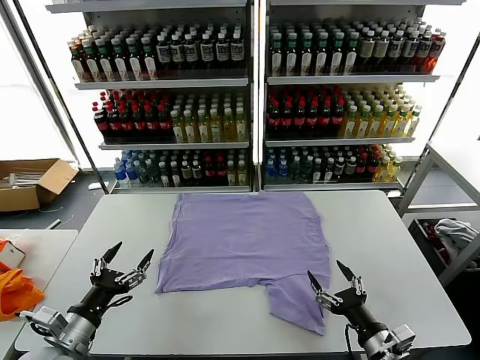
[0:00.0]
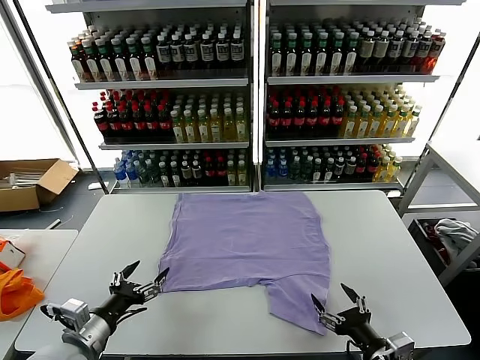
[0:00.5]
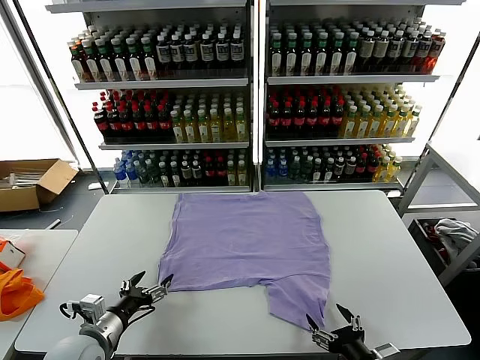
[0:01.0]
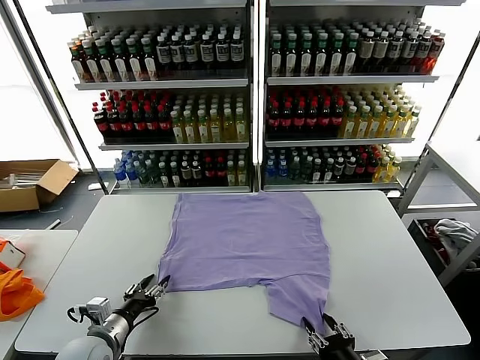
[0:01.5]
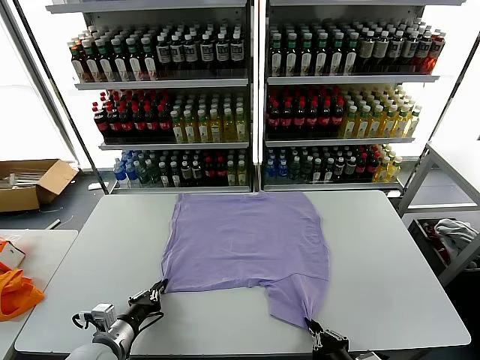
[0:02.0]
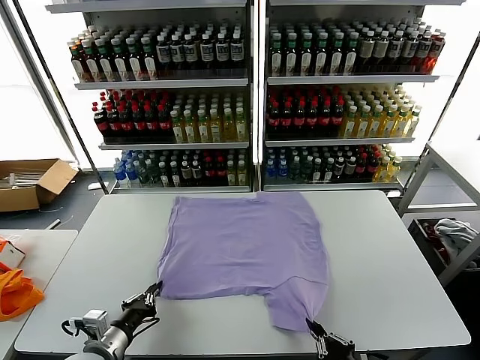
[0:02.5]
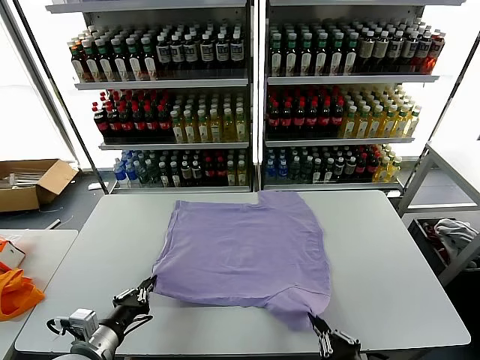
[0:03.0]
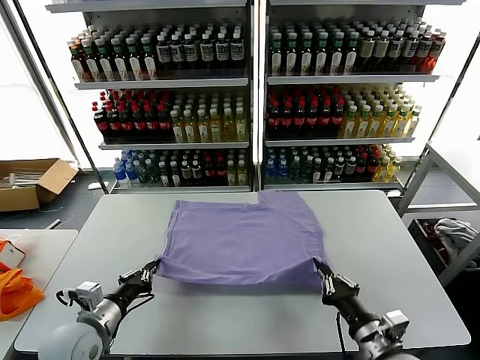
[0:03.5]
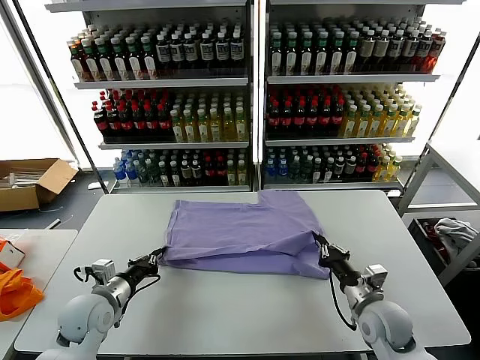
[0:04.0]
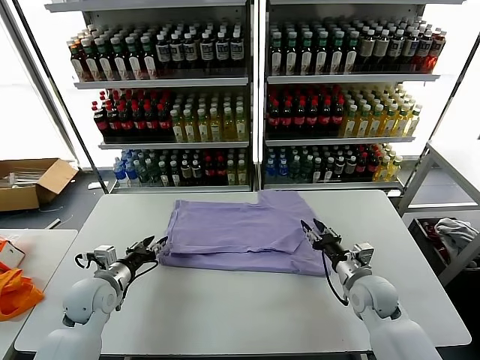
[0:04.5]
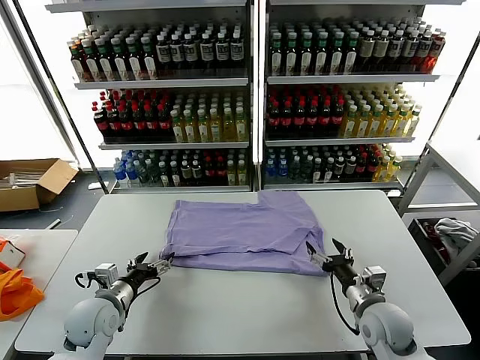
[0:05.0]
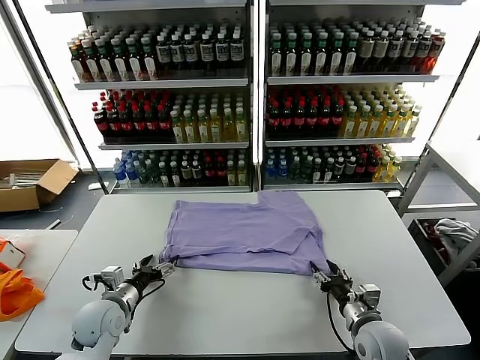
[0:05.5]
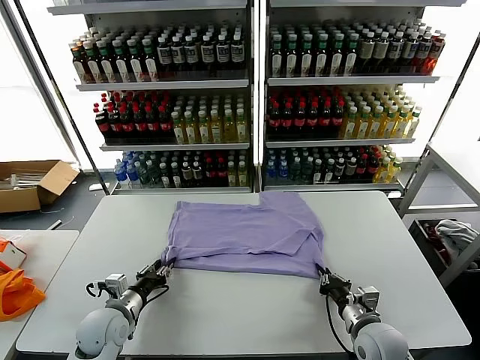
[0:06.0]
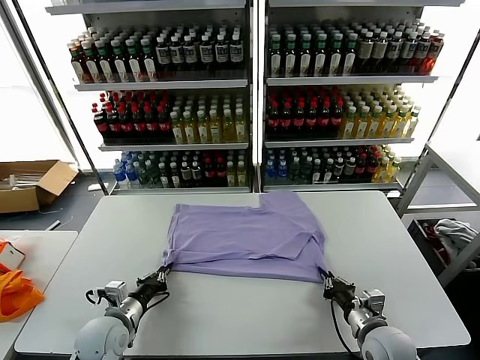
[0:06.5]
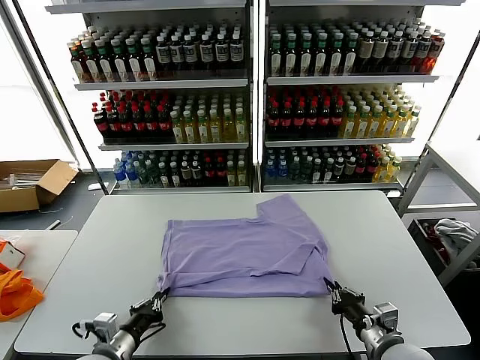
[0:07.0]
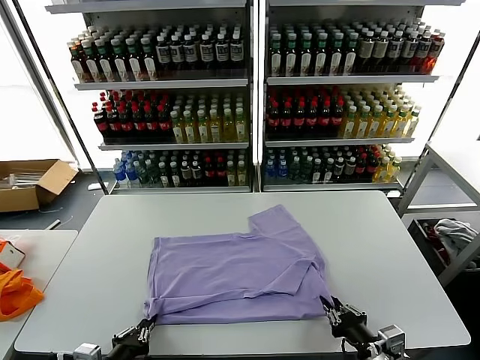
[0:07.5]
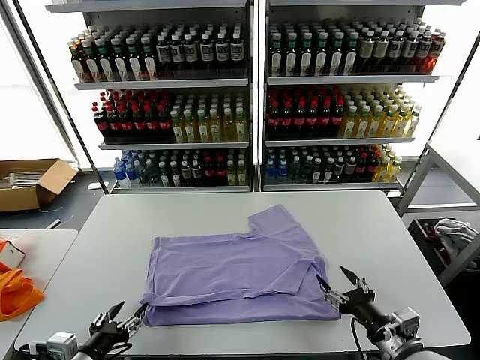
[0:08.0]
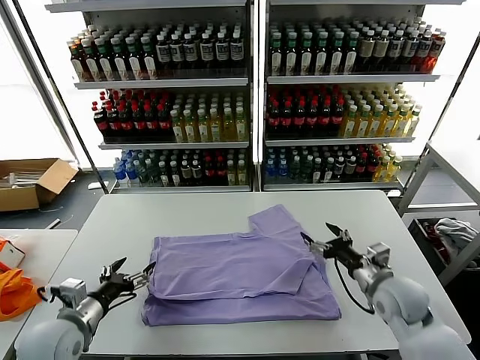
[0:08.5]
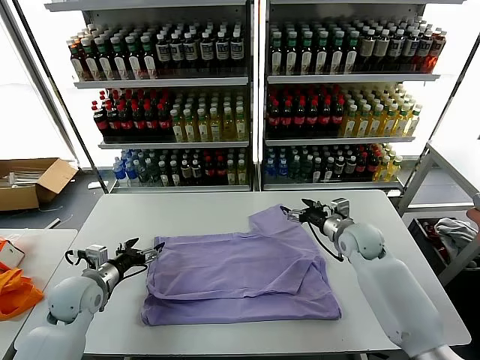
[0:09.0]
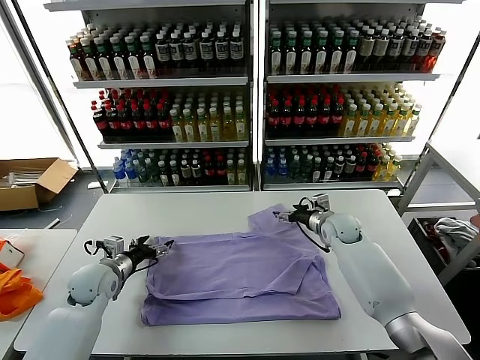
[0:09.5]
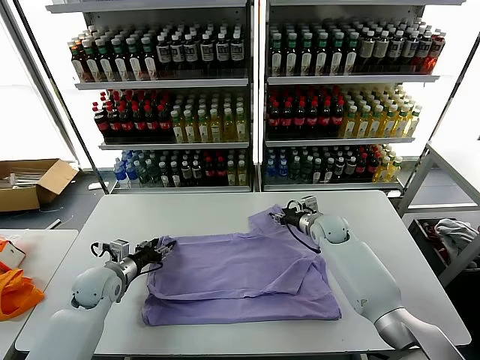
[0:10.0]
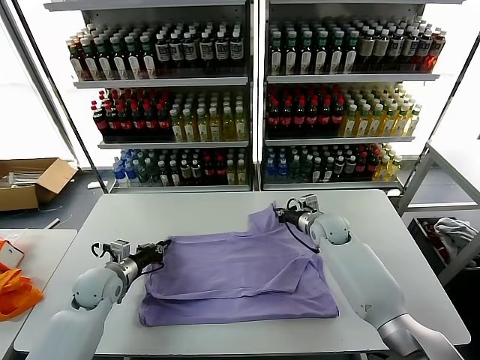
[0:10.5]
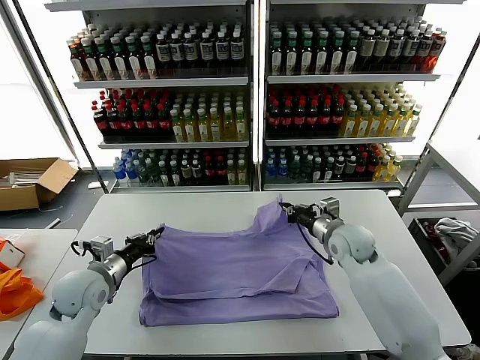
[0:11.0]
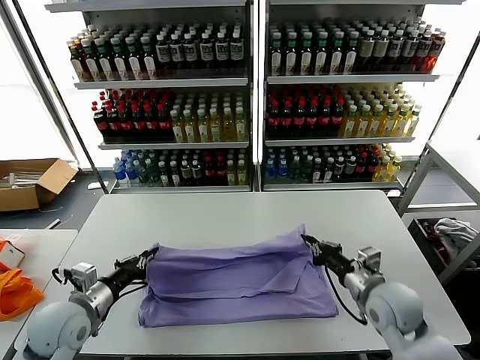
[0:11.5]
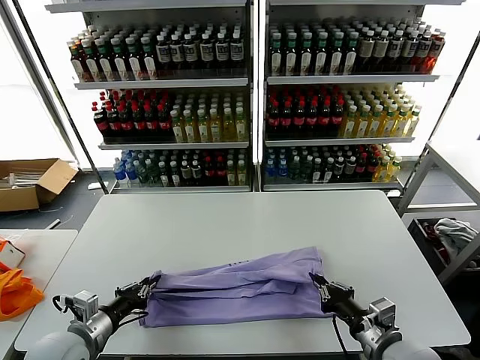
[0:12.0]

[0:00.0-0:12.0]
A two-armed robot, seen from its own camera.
Task of the whole recording: fold and organize the clothes.
Step, 0:00.0 to 0:02.0: use both grippers simultaneously to clamp the lower edge of the clothing fabric.
Step, 0:02.5 to 0:04.5: use both grippers to drag the lower edge of the fabric forward and fold it over the upper edge.
Step, 0:05.0 to 0:07.5: Drag the clothes downward with both gripper.
Step, 0:08.0 to 0:10.5: use both grippers simultaneously to clamp the upper edge of the clothing fabric.
0:02.0 to 0:04.0: The left gripper moves forward, roughly 10 cm, while the right gripper moves forward, approximately 20 cm.
0:04.0 to 0:06.0: The left gripper moves about 5 cm, and opens. The right gripper is displaced backward by some 5 cm, and opens, then closes once more.
0:06.0 to 0:08.0: The left gripper goes some 15 cm backward and upward, and closes, then reopens, while the right gripper goes about 10 cm upward and backward, and opens.
0:08.0 to 0:10.0: Both grippers move forward, some 30 cm. The right gripper closes its fingers.
0:10.0 to 0:12.0: The left gripper is displaced backward by approximately 15 cm, and closes up. The right gripper shifts some 35 cm backward, and closes up.

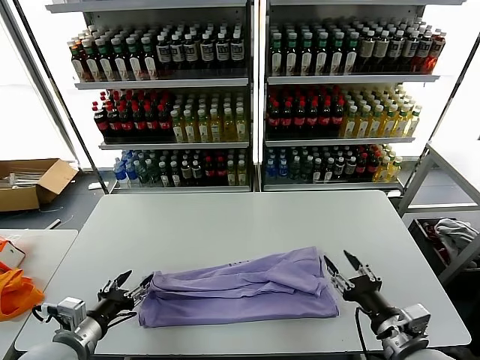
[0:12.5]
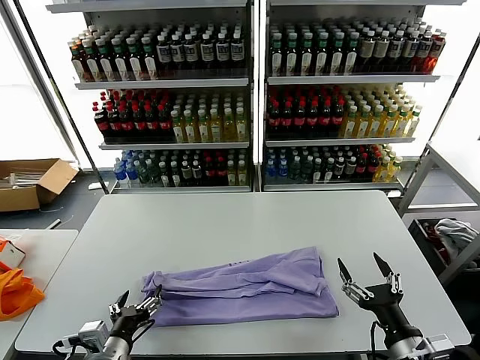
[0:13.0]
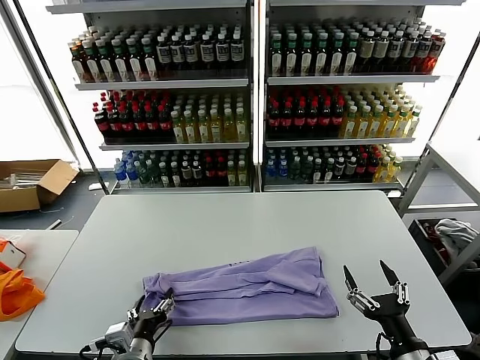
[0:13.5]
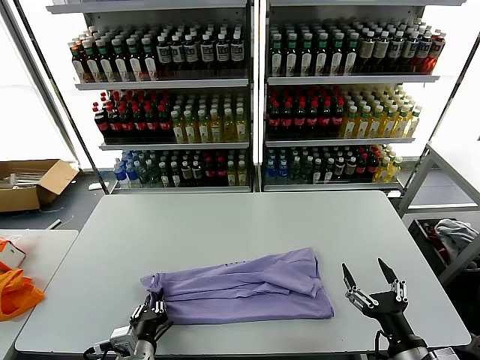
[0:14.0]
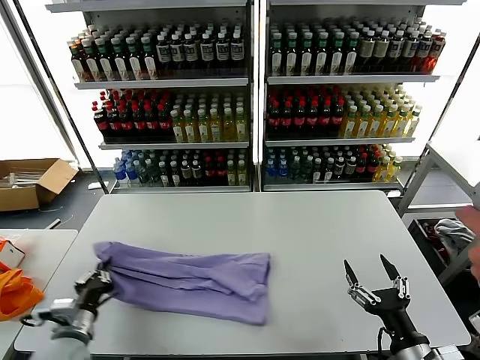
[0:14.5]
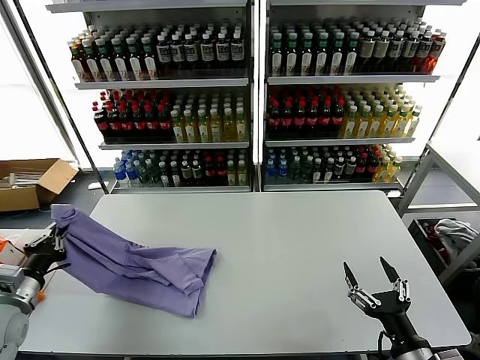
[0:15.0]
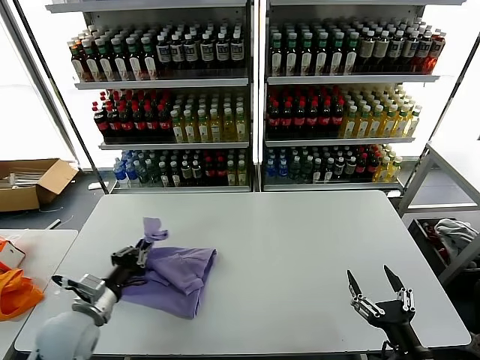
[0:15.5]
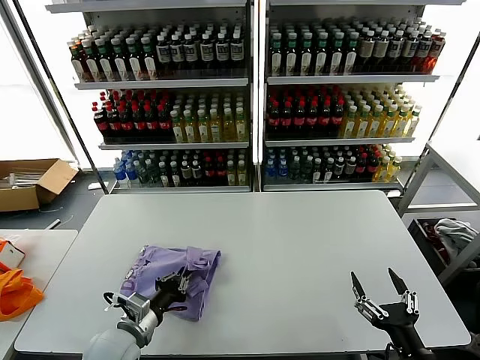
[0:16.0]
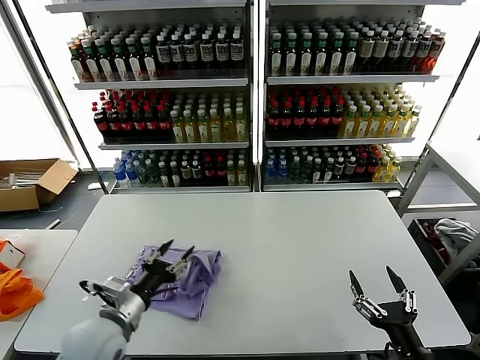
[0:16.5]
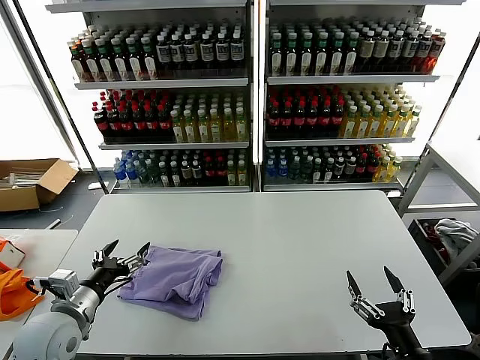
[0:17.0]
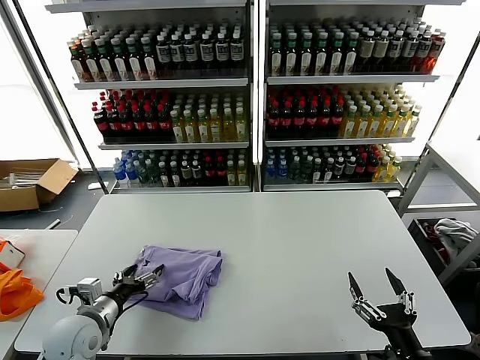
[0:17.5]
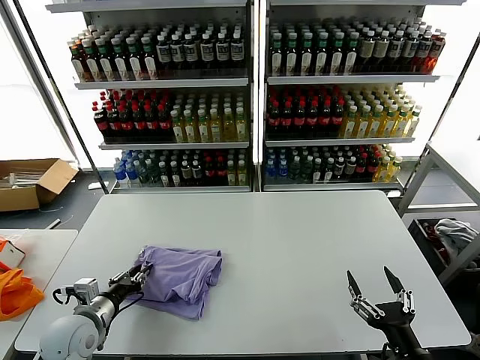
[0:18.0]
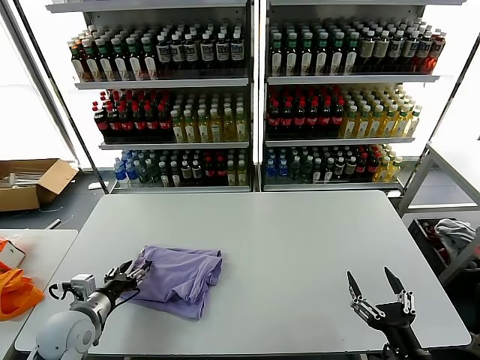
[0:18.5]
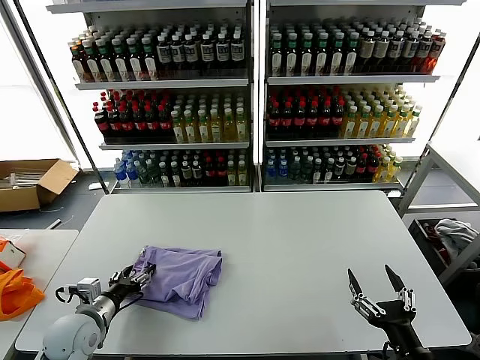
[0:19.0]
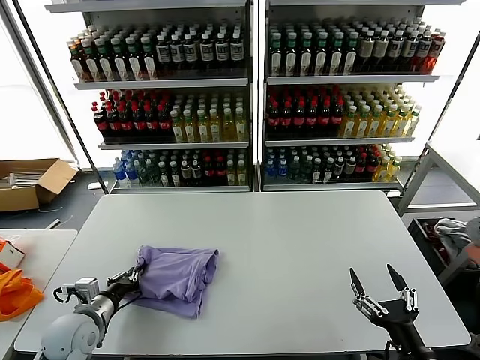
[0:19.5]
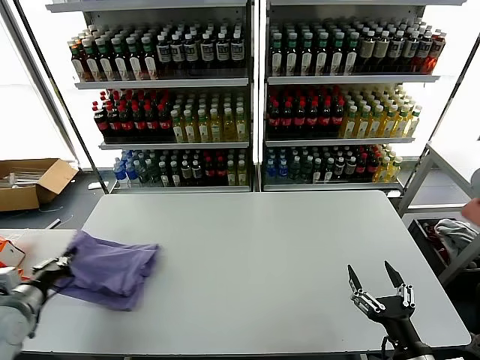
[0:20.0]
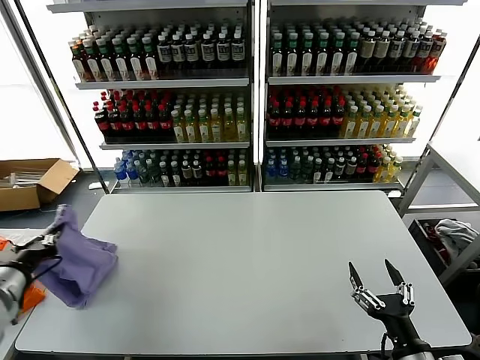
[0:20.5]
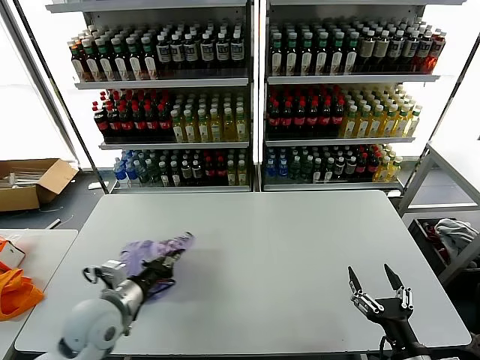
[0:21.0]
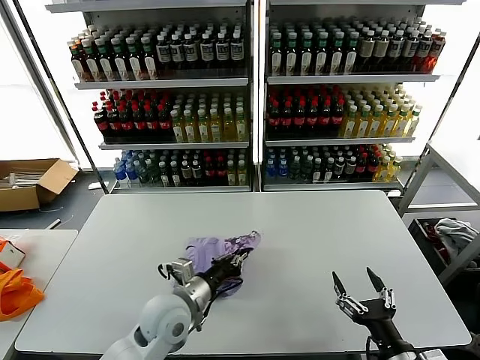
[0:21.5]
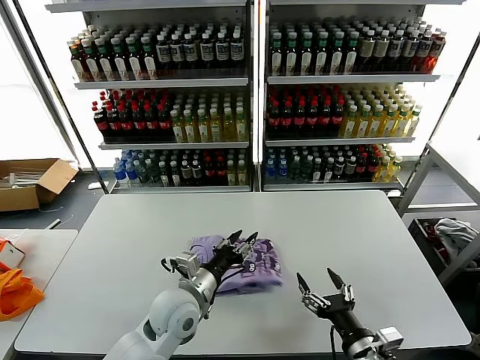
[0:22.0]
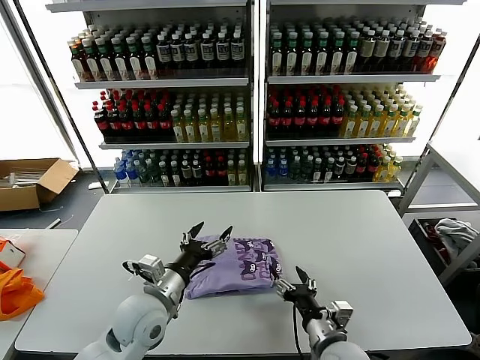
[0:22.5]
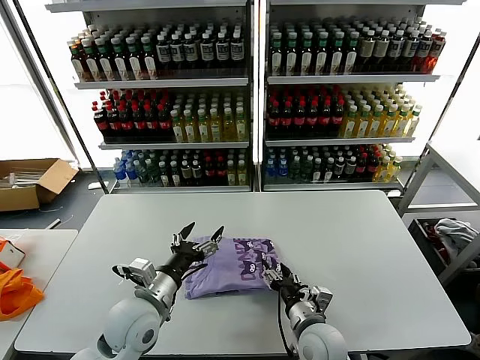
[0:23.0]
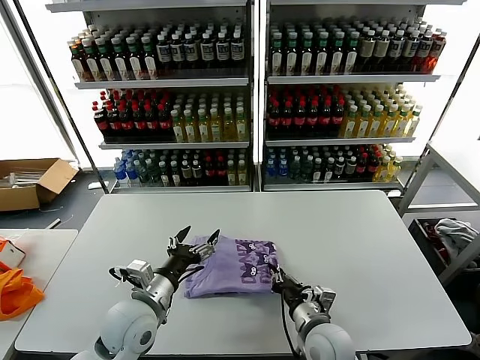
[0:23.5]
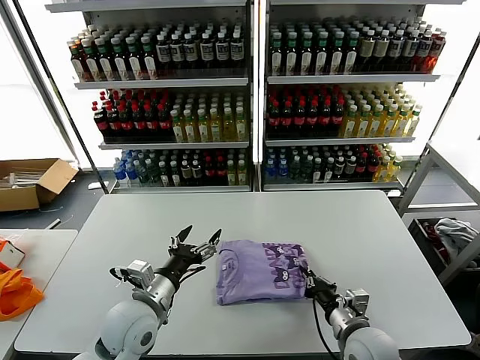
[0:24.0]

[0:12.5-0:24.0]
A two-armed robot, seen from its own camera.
Task of the whole recording: fold and organize the clothes.
Step, 0:12.5 to 0:14.0: use the left gripper to clamp the left edge of the fabric.
Step, 0:14.5 to 0:16.0: use the left gripper to drag the left edge of the fabric to the left and folds it over the right edge.
Step, 0:16.5 to 0:21.5: Flip the folded clothes over with left gripper.
0:12.5 to 0:14.5: The left gripper shifts about 5 cm downward, moves approximately 10 cm to the right and comes back, and closes up. Meanwhile the right gripper shifts by about 5 cm.
0:14.5 to 0:16.5: The left gripper is displaced to the right and upward by about 10 cm, and opens up.
0:16.5 to 0:18.5: The left gripper moves to the left, roughly 10 cm, and opens, then closes once more.
0:18.5 to 0:20.0: The left gripper travels to the left by some 10 cm, and closes.
0:20.0 to 0:22.0: The right gripper shifts approximately 5 cm to the left; the left gripper heads to the right, covering approximately 30 cm, and opens.
0:22.0 to 0:24.0: The left gripper heads to the left, covering about 10 cm, and opens its fingers. Meanwhile the right gripper shifts roughly 10 cm forward, and closes up.

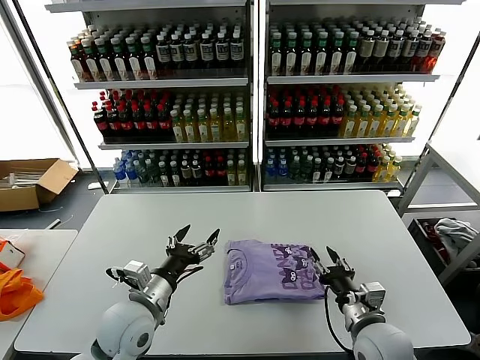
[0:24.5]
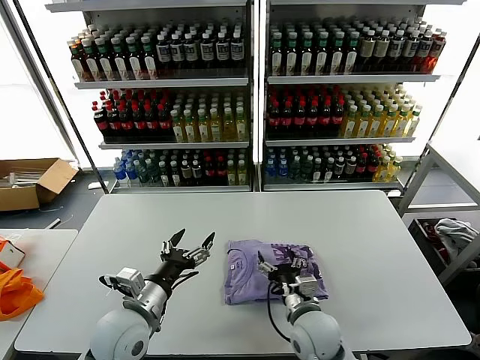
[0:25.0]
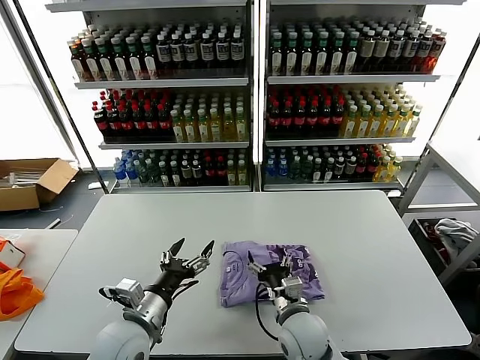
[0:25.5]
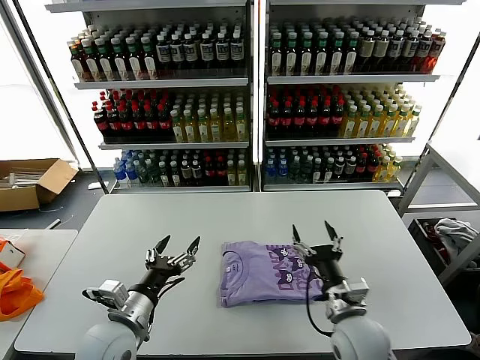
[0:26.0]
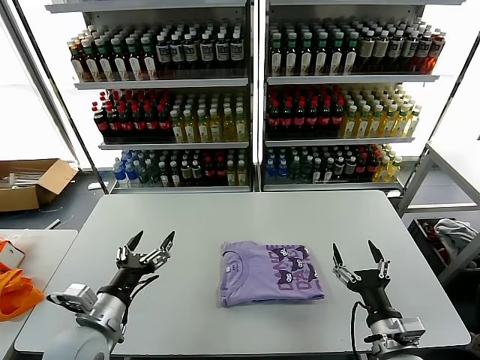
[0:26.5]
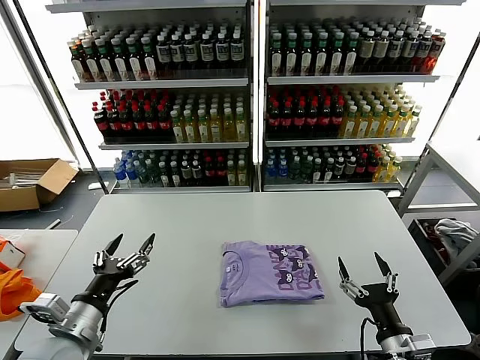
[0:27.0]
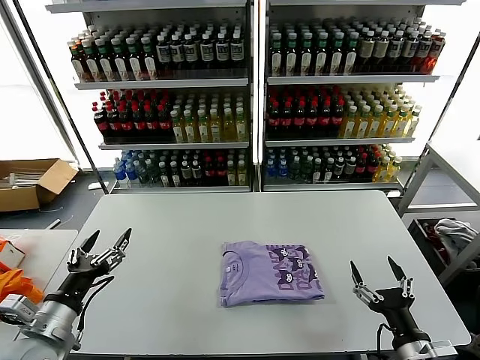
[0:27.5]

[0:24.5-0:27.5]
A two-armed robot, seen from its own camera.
Task of the whole recording: fold and organize the clothes.
0:24.5 to 0:26.0: The right gripper heads to the left, covering approximately 5 cm, and opens.
0:26.0 to 0:27.5: The left gripper goes approximately 10 cm to the left, while the right gripper shifts some 15 cm to the right and backward.
